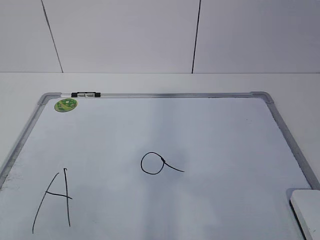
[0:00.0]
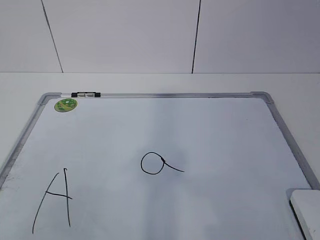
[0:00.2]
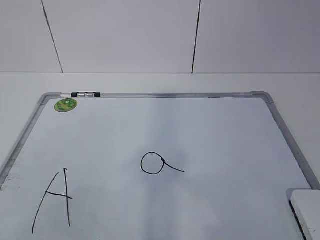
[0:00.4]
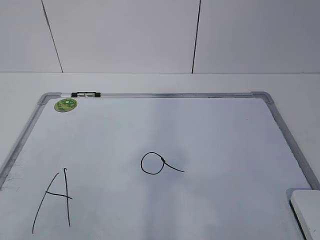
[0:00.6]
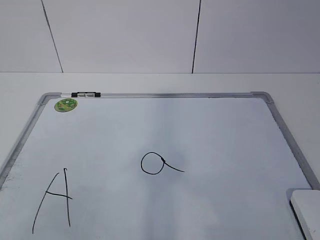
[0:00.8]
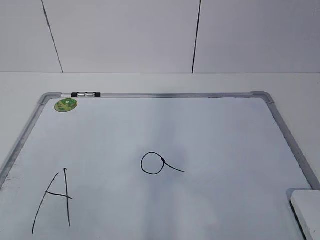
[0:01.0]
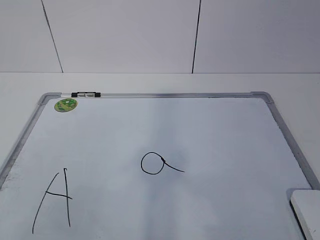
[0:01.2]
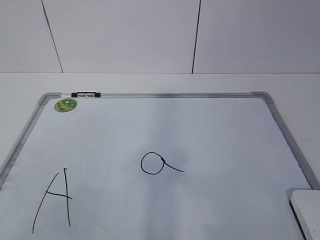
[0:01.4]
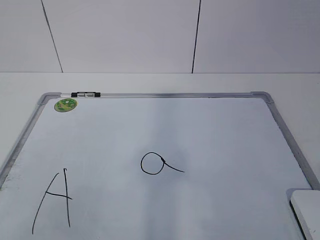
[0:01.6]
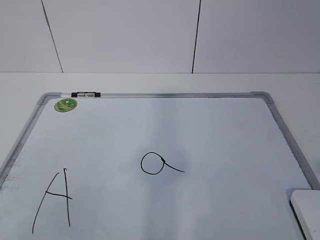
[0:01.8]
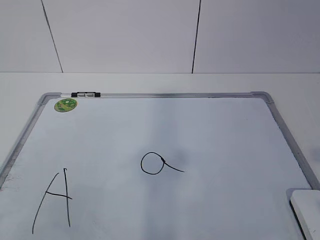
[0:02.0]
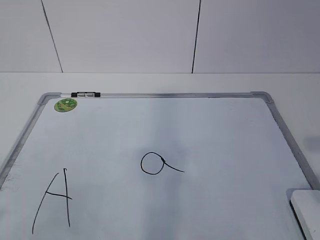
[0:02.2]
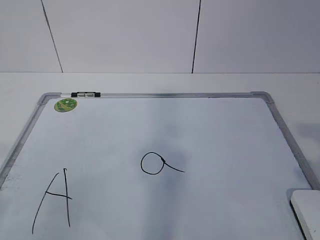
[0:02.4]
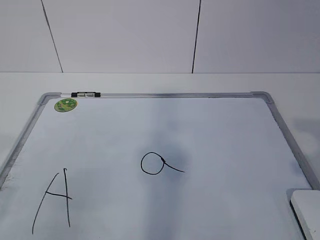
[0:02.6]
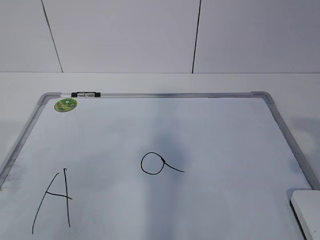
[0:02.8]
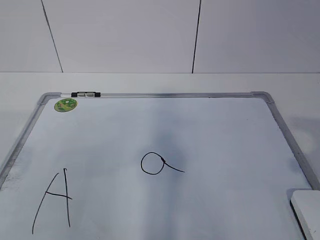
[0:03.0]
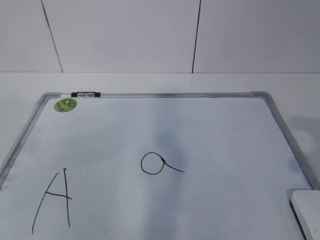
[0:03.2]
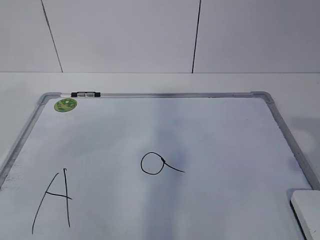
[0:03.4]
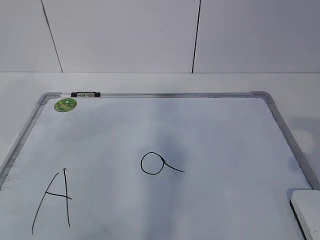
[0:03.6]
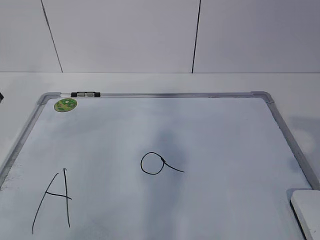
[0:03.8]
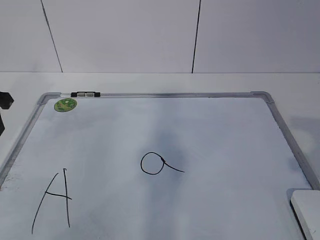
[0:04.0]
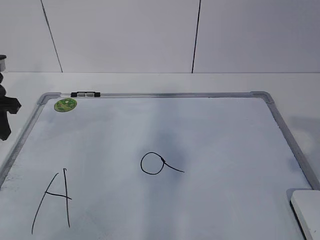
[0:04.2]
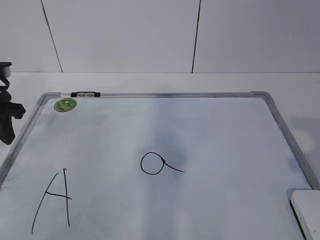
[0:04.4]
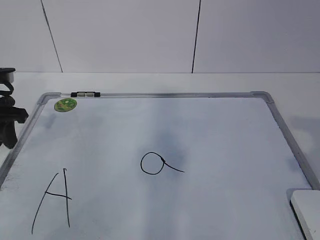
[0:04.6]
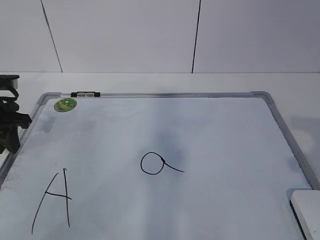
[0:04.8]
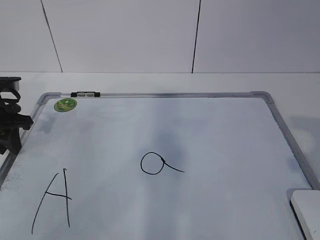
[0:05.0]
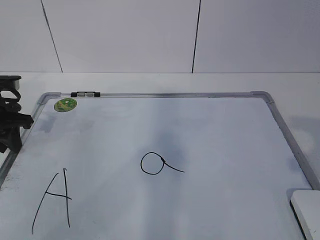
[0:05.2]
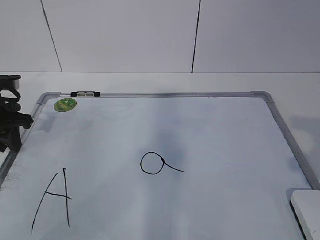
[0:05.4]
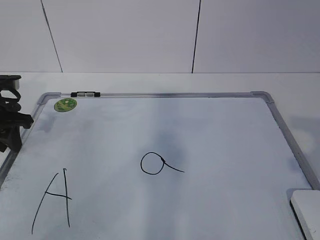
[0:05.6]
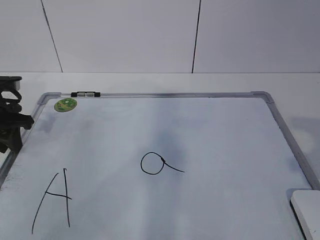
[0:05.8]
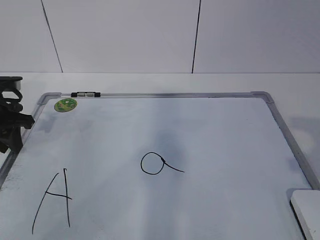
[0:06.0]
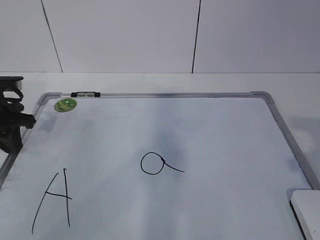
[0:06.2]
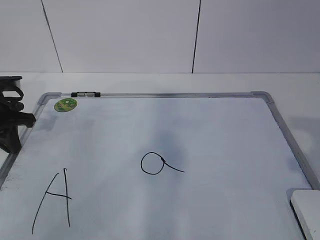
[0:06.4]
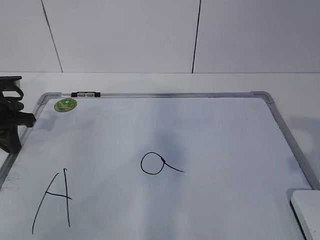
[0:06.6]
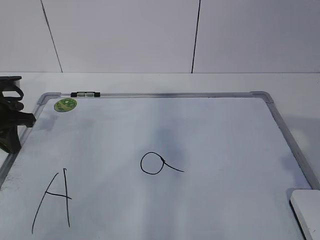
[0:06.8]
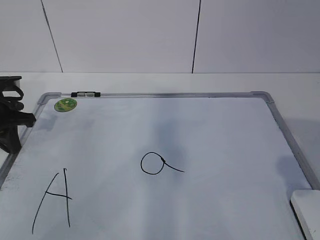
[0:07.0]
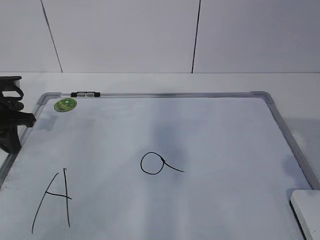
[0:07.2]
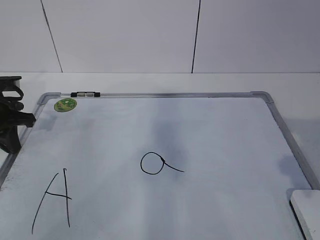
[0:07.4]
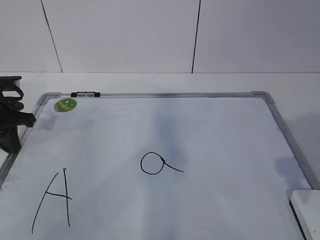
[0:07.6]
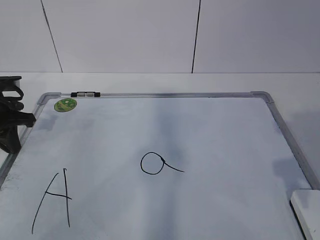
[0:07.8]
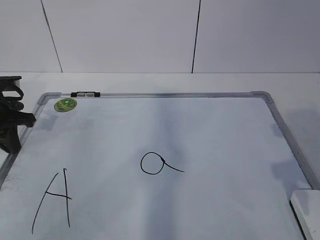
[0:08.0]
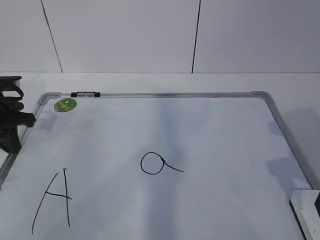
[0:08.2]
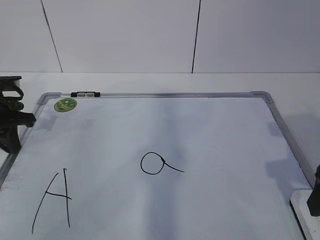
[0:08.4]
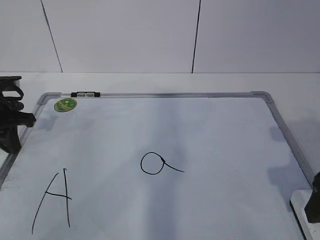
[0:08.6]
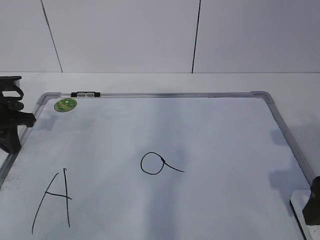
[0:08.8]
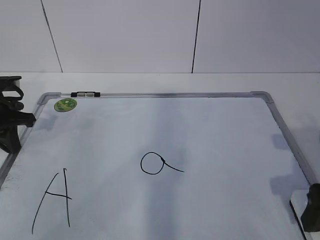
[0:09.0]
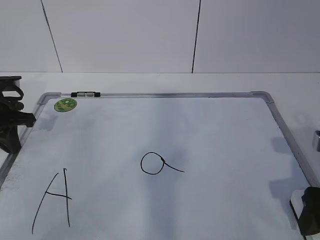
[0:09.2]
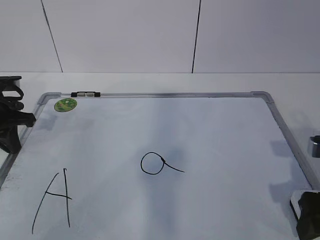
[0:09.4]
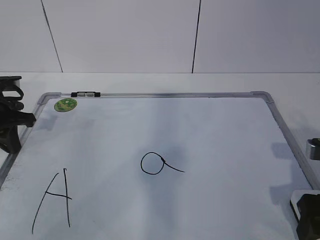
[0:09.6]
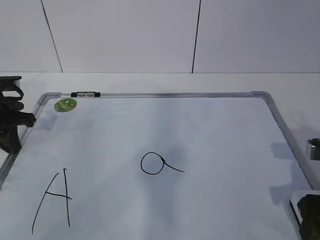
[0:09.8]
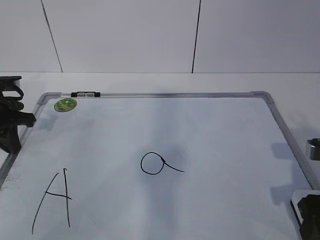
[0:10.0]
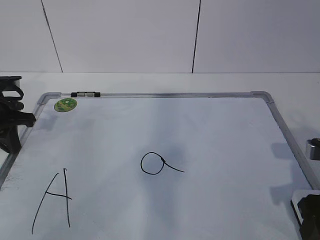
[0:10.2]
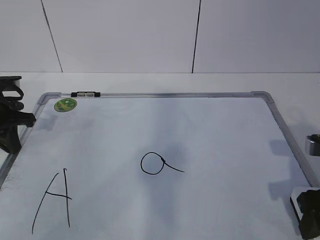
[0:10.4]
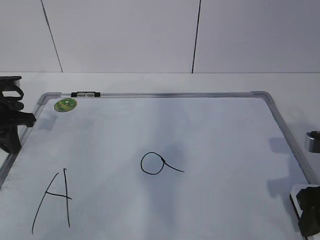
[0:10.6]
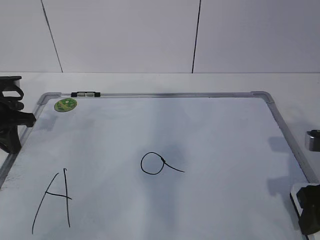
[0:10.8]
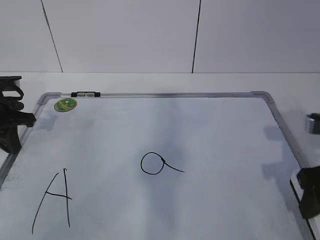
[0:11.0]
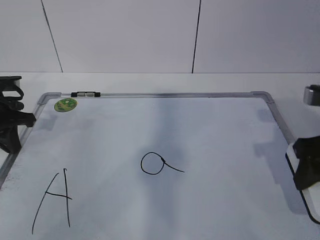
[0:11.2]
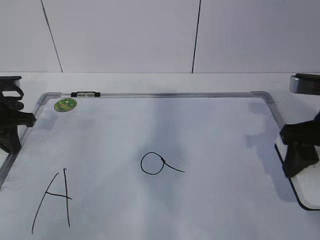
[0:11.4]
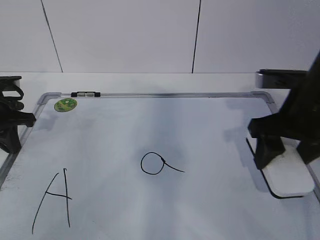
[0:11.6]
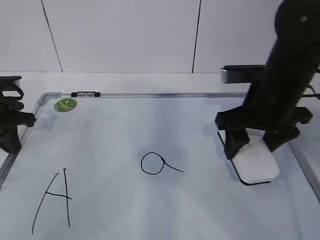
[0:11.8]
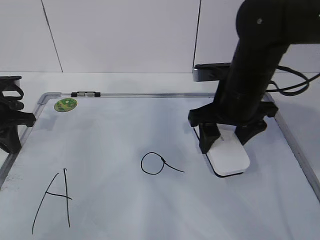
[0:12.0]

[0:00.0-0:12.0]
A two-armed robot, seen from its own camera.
Task of the whole recording: pick up the eraser on the blackboard and erase the letter "a".
Step, 0:00.0 to 0:05.2: Hold the drawing board steady with your left hand.
0:03.0 to 0:04.4: The left gripper travels forward and downward by roughly 20 cm.
0:04.4 to 0:06.0: There are only small adjustments of the grippers.
0:07.6 to 0:09.0: The right gripper heads downward, covering roughly 10 cm.
0:09.0 to 0:10.4: The right gripper closes its fingers.
0:10.4 to 0:12.0: The right gripper goes some 20 cm forward and to the left.

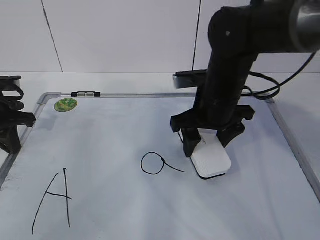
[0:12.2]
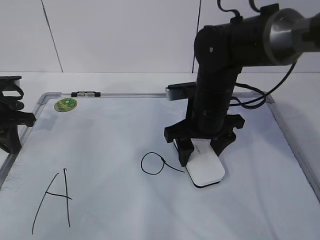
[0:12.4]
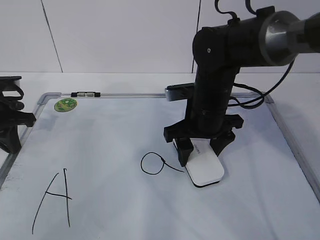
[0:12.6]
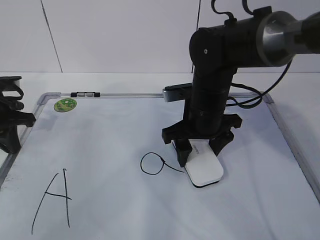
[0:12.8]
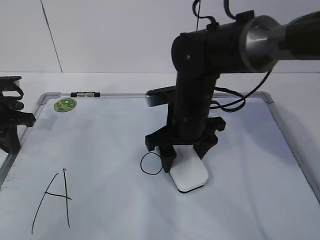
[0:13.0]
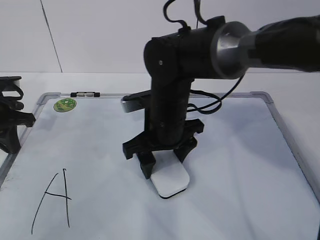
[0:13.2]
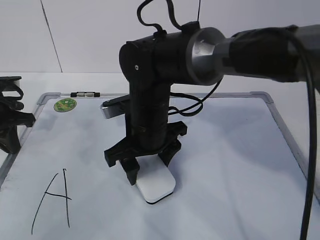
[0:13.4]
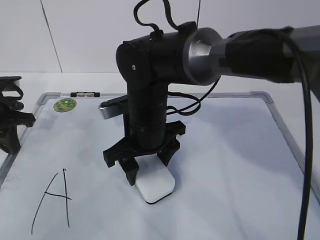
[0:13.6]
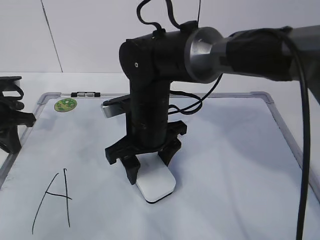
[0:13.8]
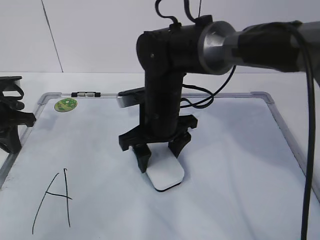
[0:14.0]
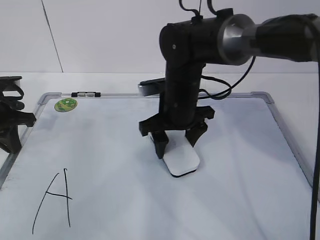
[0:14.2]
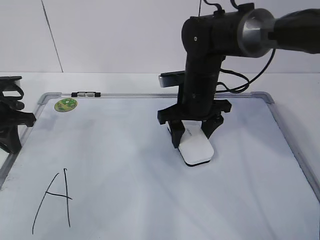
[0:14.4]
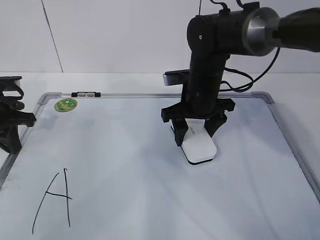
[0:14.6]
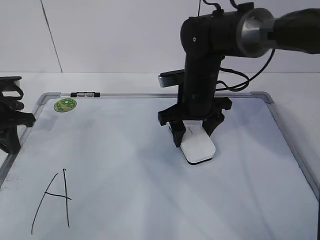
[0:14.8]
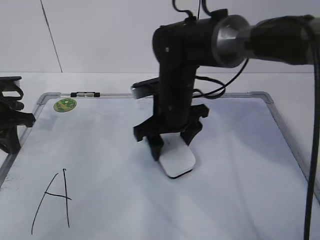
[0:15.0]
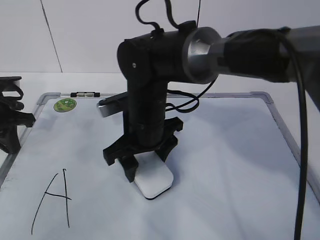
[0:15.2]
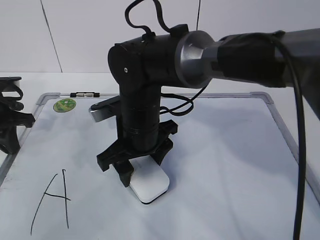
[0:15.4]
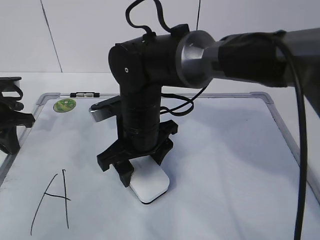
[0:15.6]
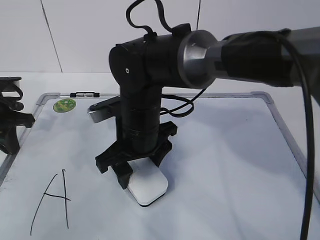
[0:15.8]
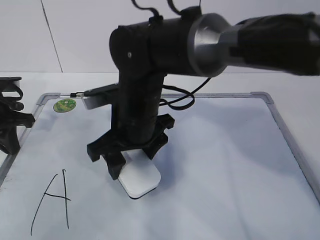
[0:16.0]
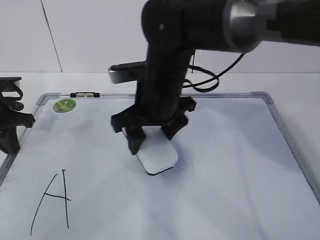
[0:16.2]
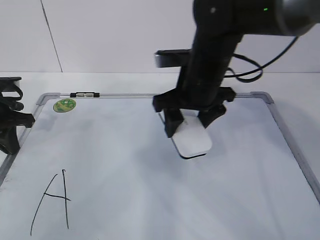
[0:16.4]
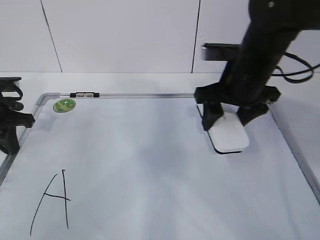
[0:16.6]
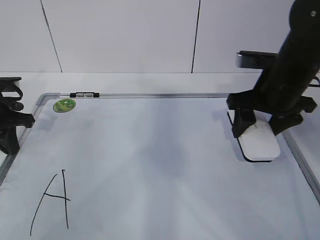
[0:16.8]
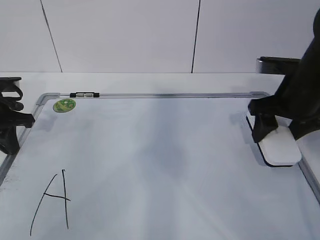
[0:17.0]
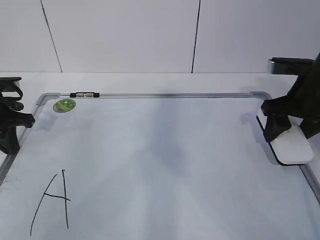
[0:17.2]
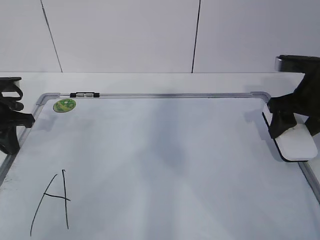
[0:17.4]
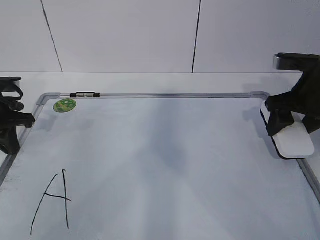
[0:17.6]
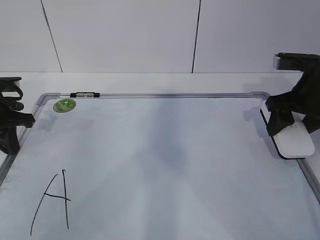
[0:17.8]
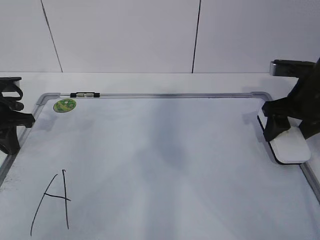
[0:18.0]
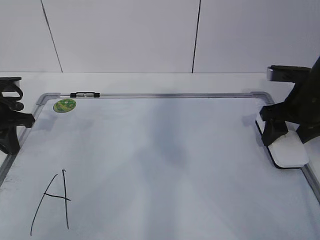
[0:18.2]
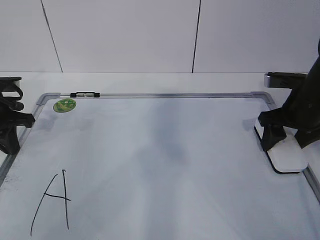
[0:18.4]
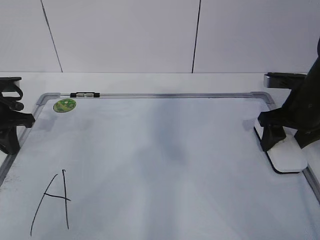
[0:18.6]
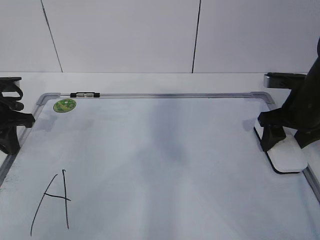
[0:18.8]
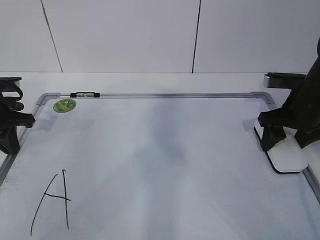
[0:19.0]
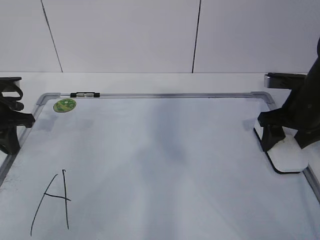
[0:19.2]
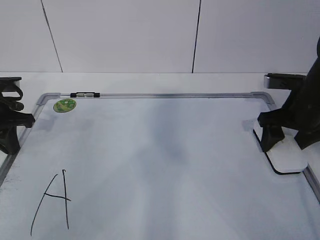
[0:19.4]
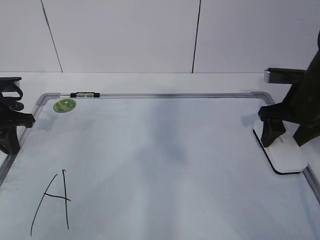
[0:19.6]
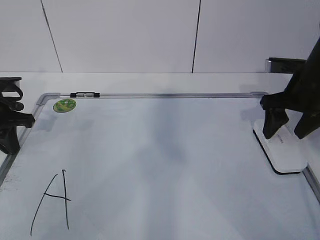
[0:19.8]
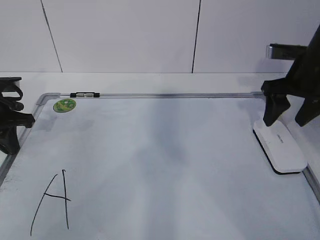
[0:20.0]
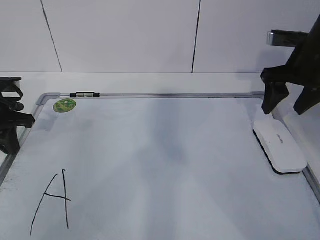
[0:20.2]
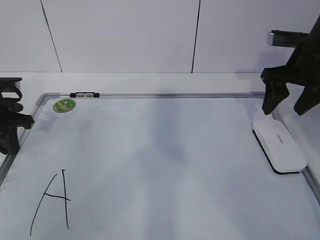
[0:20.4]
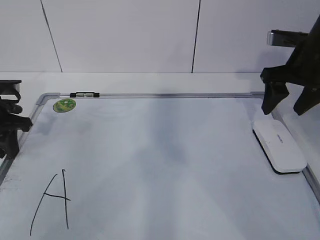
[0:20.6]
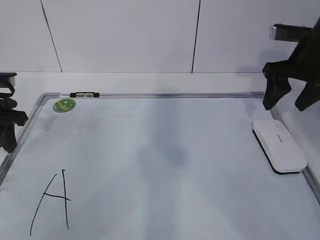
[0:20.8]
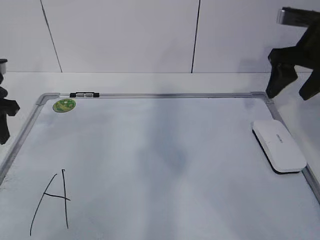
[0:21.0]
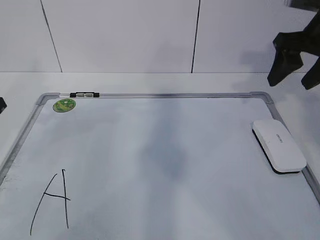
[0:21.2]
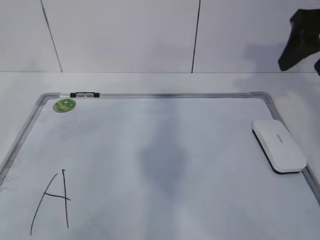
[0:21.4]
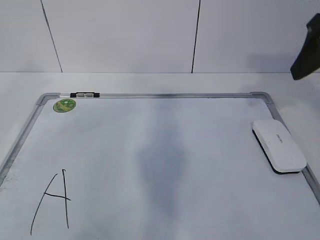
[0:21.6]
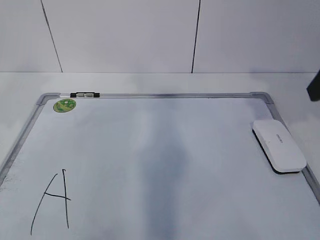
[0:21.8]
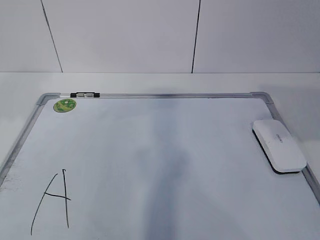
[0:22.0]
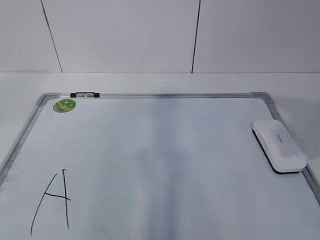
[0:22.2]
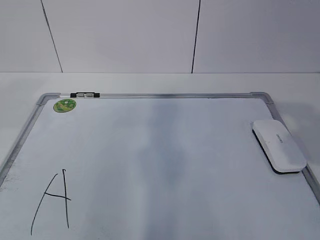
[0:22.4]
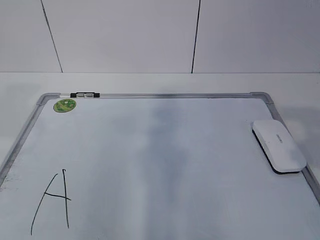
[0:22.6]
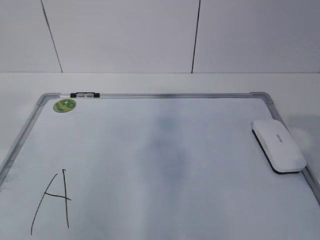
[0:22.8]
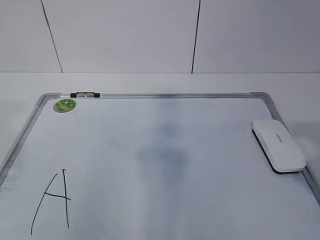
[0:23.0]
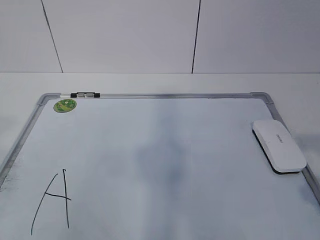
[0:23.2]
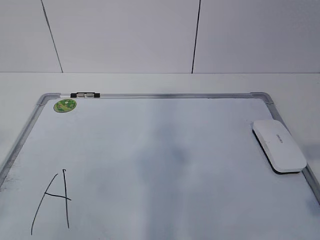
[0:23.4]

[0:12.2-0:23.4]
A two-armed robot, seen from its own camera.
Task of the whole recording: pick up the eraser on the blackboard and erase the letter "a".
Step, 0:13.2 to 0:16.0: Put down the eraser with your right hand.
0:12.2 to 0:13.8: The right gripper shifts approximately 10 cm to the left.
0:13.8 to 0:15.4: The right gripper goes to the right and returns, about 10 cm each way.
0:15.4 to 0:17.0: The right gripper shifts some 25 cm to the right.
0:17.0 to 0:18.6: The right gripper shifts by about 5 cm.
0:18.6 to 0:20.2: The right gripper is displaced upward by roughly 5 cm, and opens up.
0:20.2 to 0:21.8: The left gripper heads upward and backward, covering approximately 20 cm, and opens; the right gripper goes approximately 15 cm backward and upward.
0:21.8 to 0:23.4: The right gripper shifts approximately 20 cm backward.
